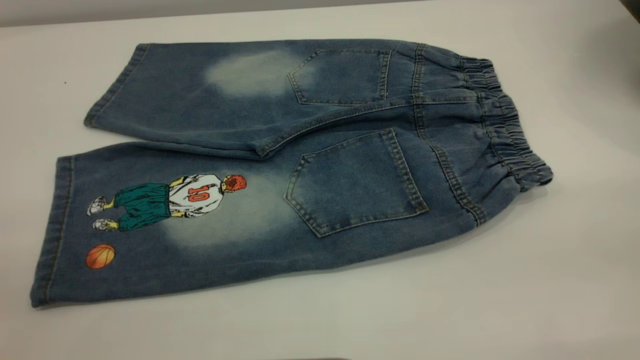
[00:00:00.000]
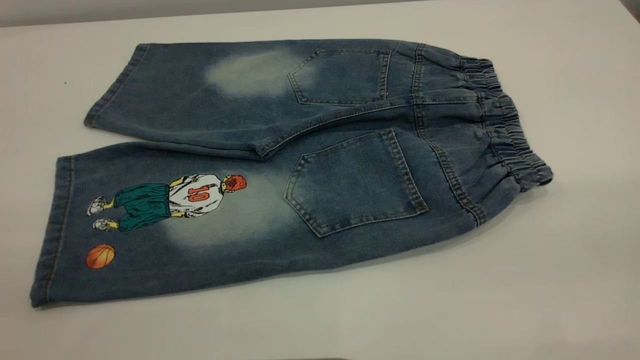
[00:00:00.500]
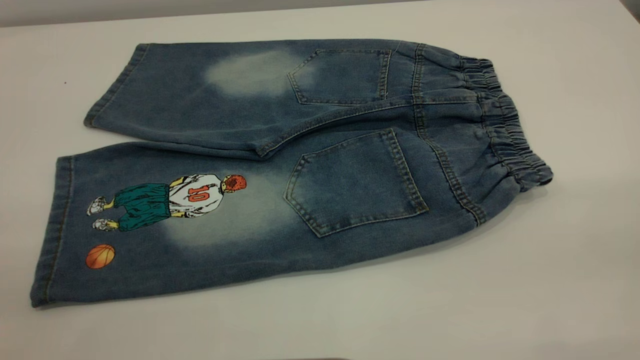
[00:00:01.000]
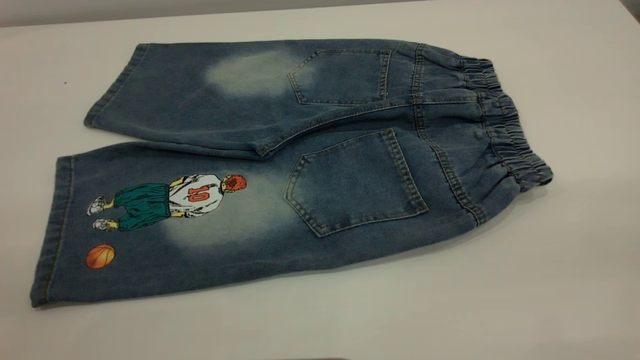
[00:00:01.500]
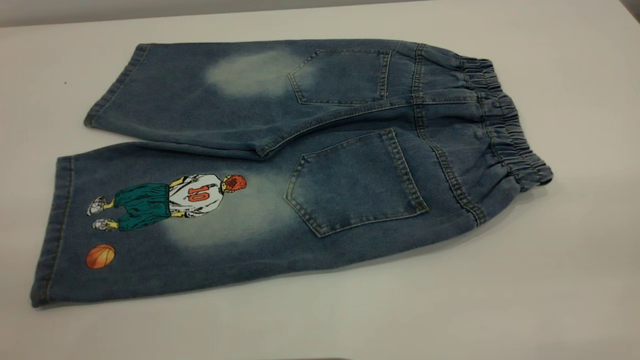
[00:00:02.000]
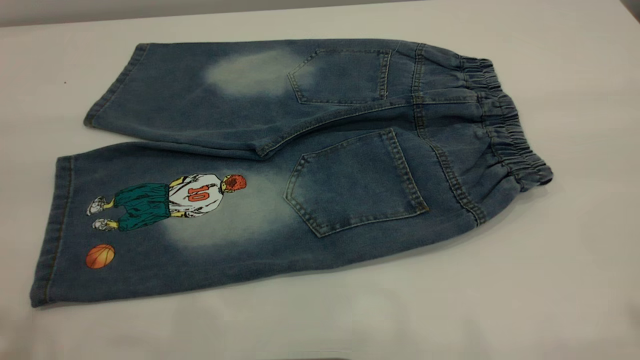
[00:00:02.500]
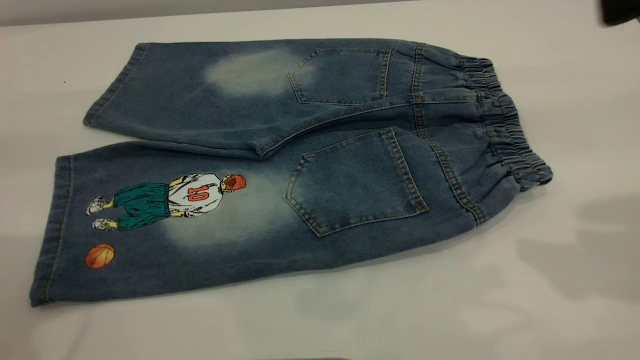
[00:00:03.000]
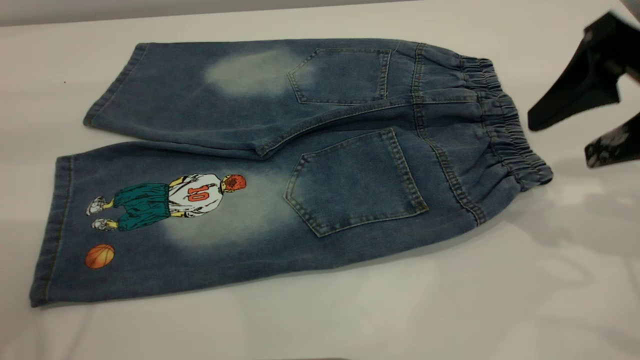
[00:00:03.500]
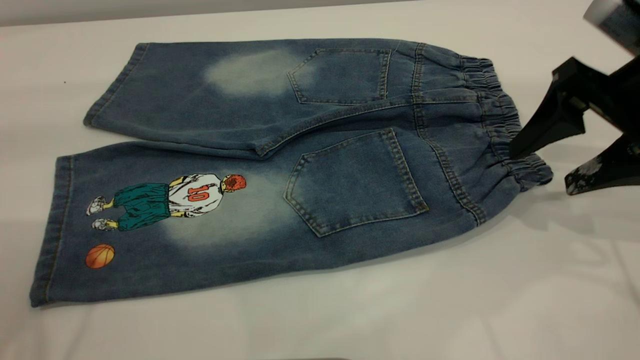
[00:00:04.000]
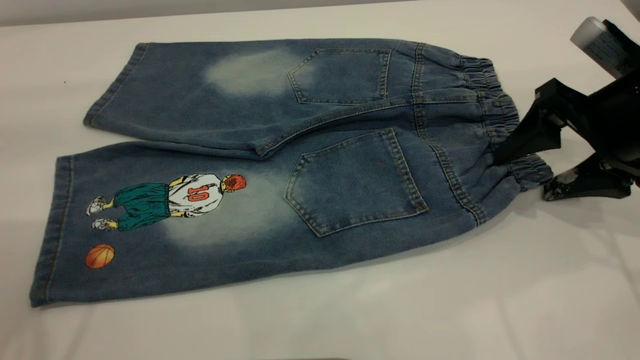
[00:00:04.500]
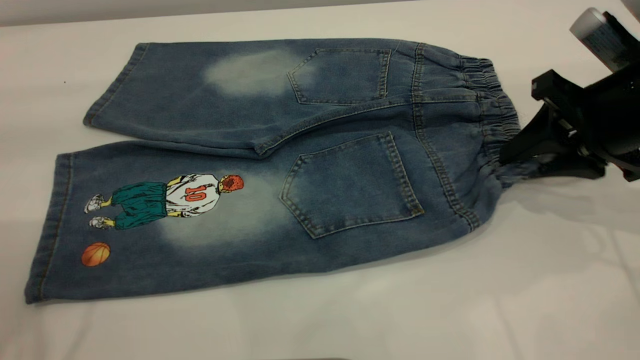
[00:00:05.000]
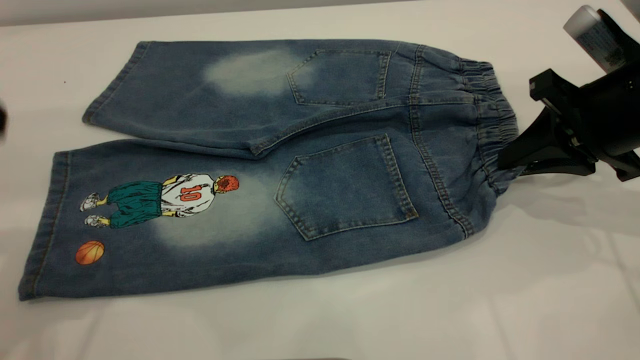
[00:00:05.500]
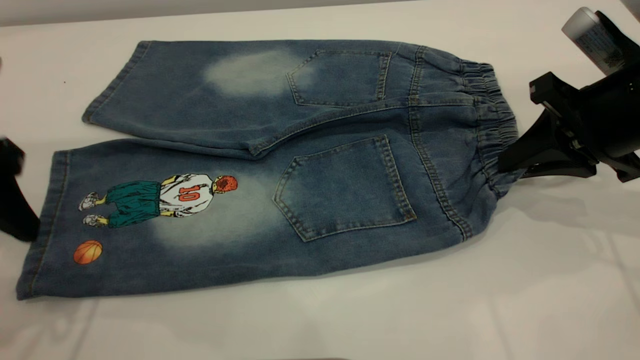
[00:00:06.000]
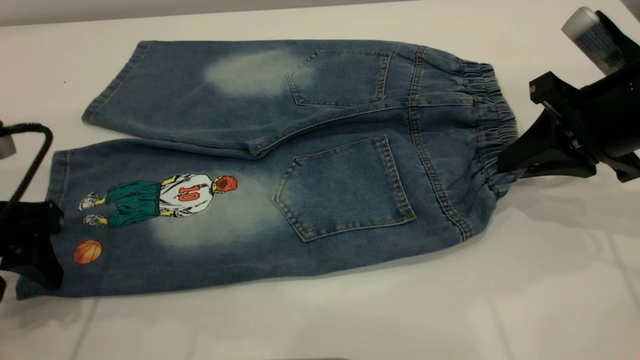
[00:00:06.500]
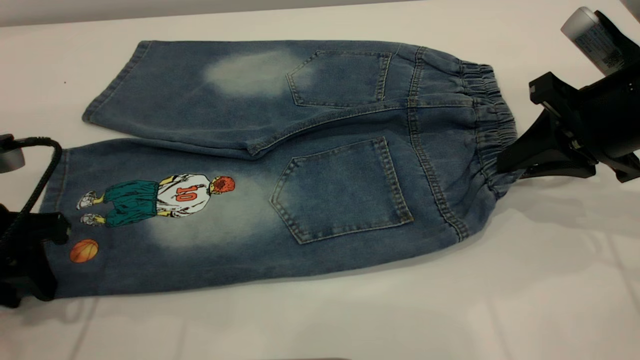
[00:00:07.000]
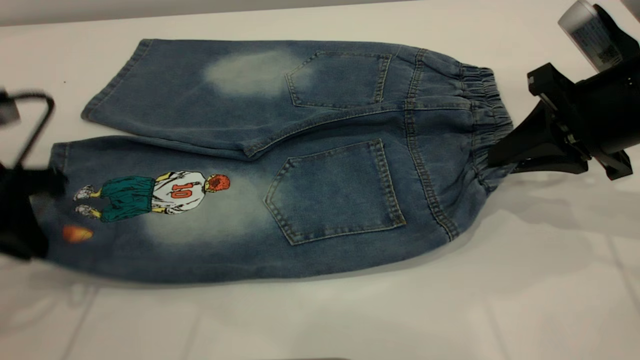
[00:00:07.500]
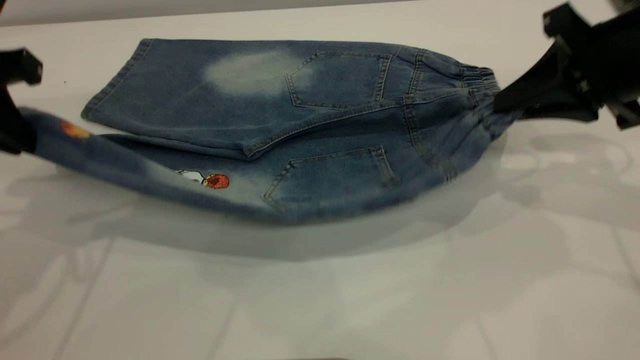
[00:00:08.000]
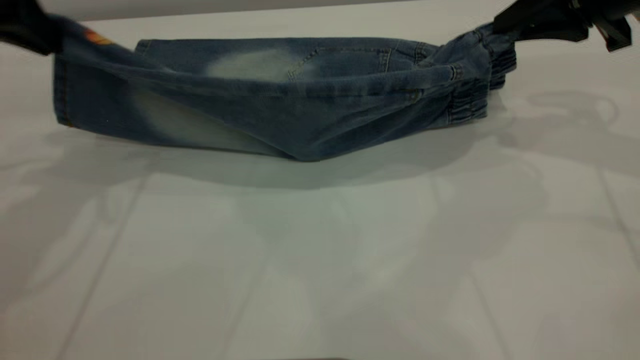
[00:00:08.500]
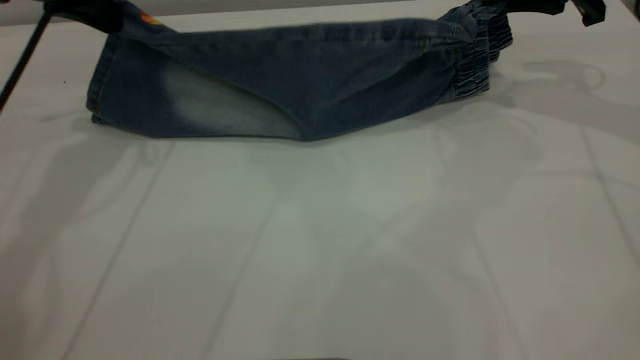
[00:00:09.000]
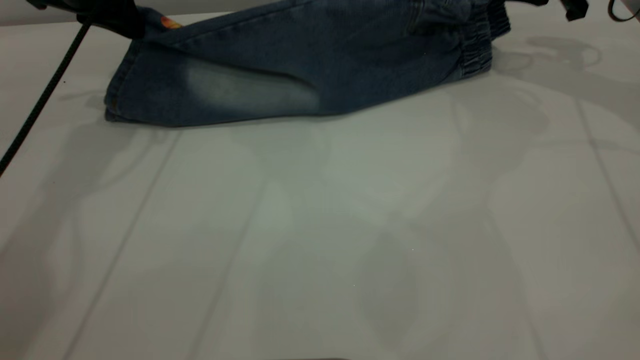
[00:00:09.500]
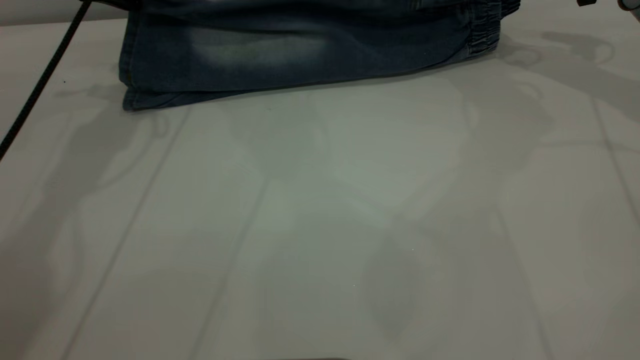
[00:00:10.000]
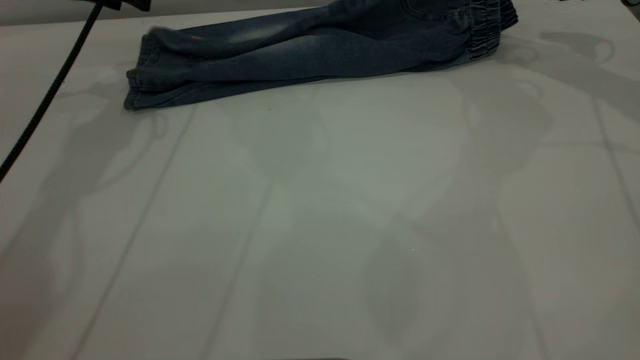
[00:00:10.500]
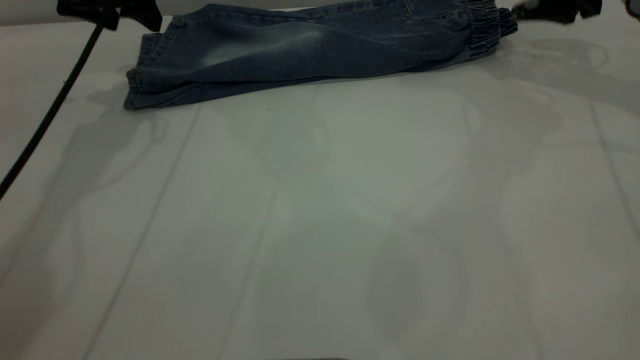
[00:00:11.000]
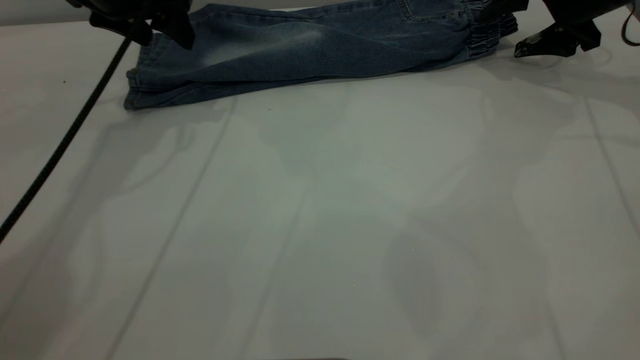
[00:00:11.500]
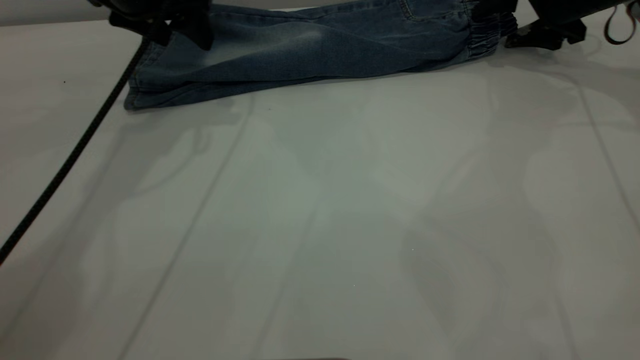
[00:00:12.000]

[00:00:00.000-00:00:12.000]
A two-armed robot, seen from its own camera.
Step, 00:00:00.000 to 00:00:11.000: Fold the bottom of the pants upward.
00:00:00.000 to 00:00:02.000: Both grippers stay put.
00:00:02.000 to 00:00:04.000: The right gripper travels forward and downward by approximately 35 cm.
00:00:04.000 to 00:00:06.000: The right gripper closes up. Meanwhile the left gripper moves downward, some 15 cm.
00:00:06.000 to 00:00:08.000: The left gripper heads forward, covering some 5 cm, and closes, while the right gripper heads upward, covering roughly 5 cm.
00:00:08.000 to 00:00:10.000: Both grippers travel together forward, roughly 20 cm.
00:00:10.000 to 00:00:12.000: The right gripper heads downward, covering some 5 cm, and opens up; the left gripper is displaced to the right by some 5 cm, and opens up.

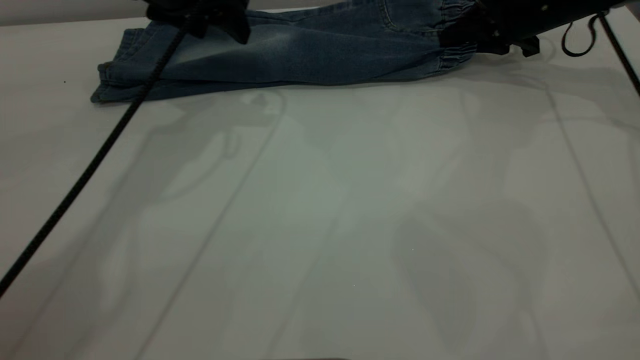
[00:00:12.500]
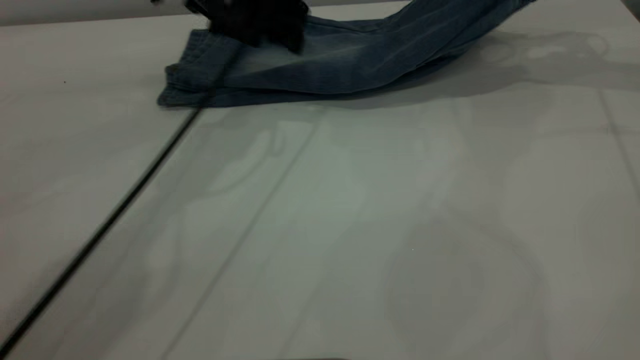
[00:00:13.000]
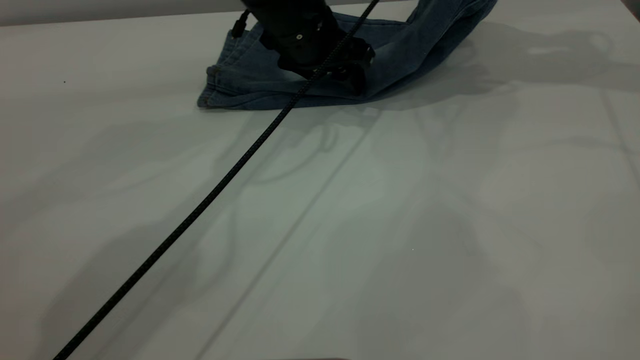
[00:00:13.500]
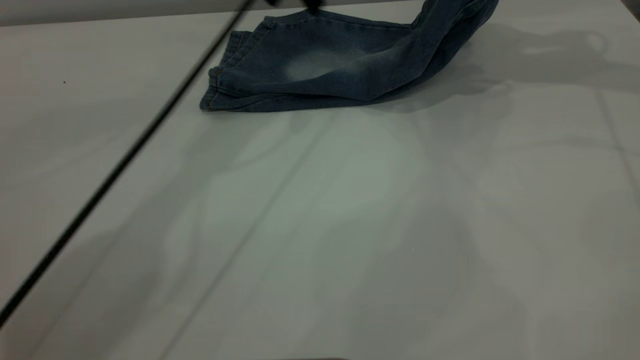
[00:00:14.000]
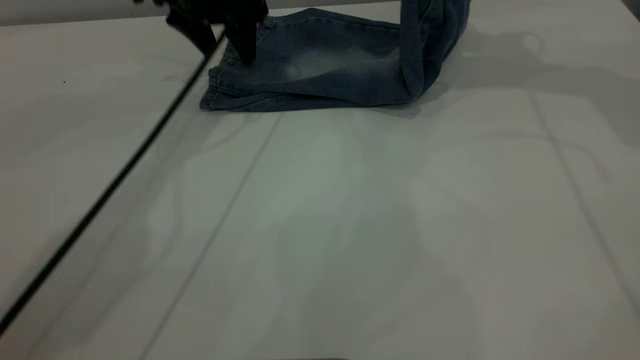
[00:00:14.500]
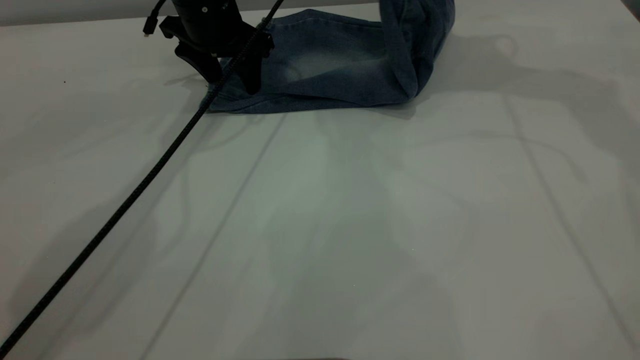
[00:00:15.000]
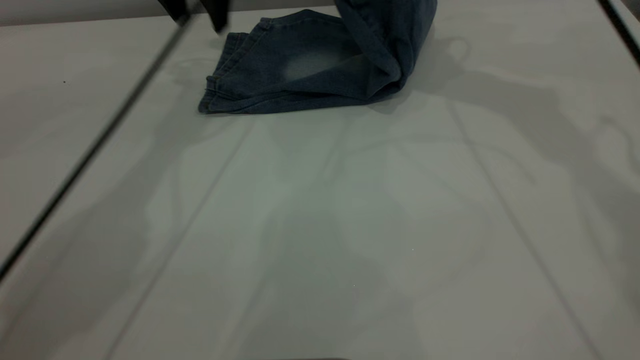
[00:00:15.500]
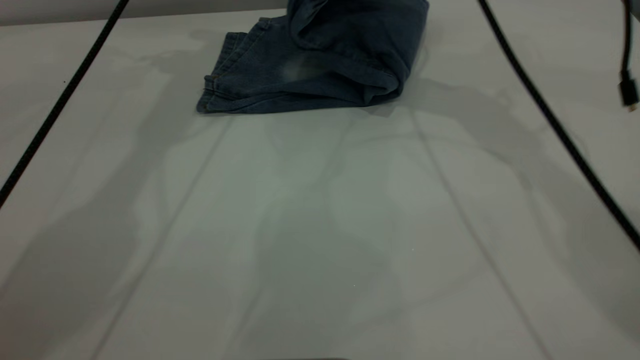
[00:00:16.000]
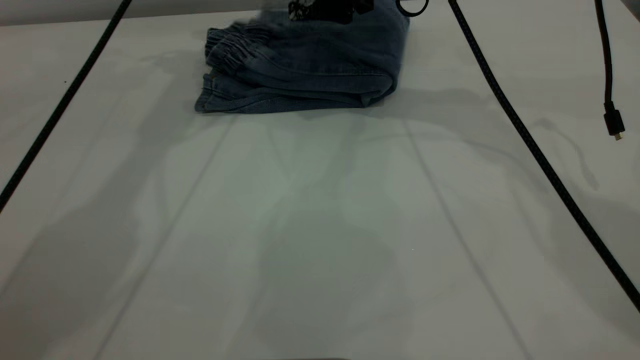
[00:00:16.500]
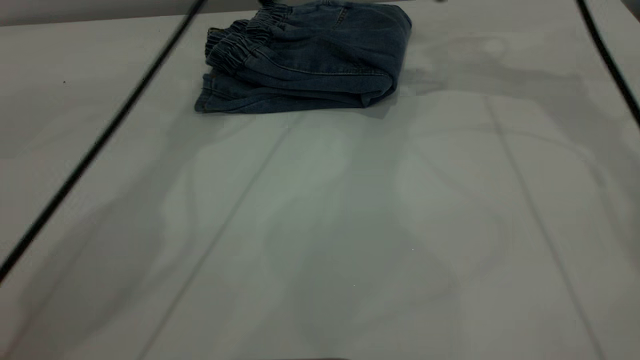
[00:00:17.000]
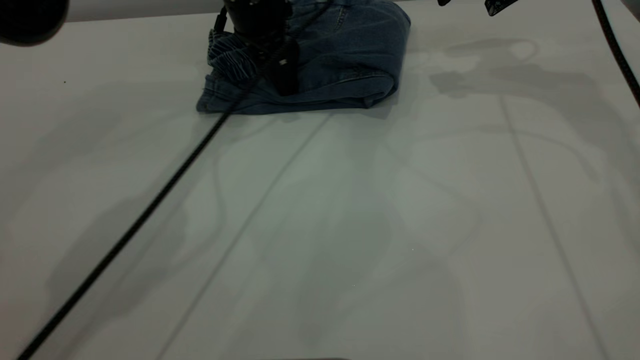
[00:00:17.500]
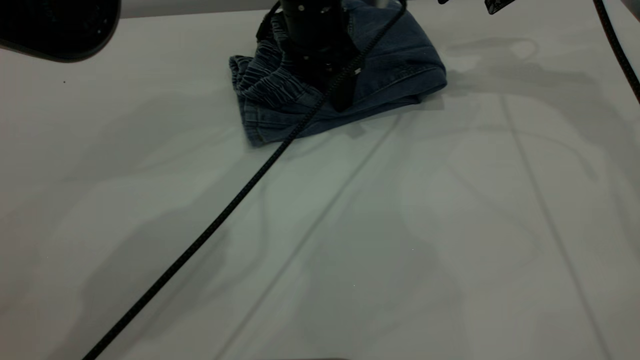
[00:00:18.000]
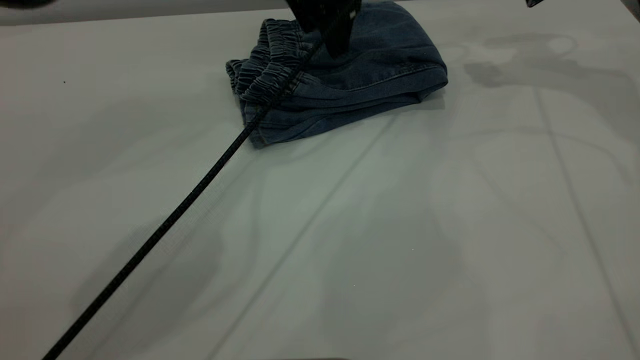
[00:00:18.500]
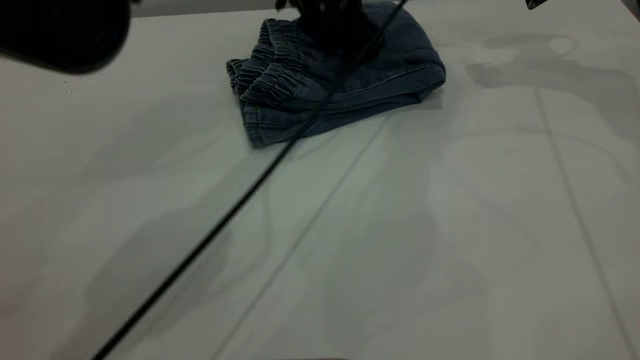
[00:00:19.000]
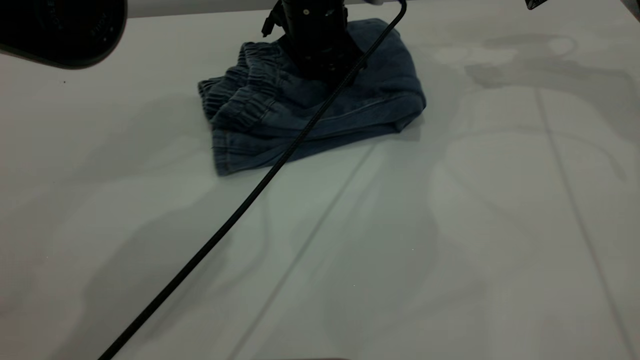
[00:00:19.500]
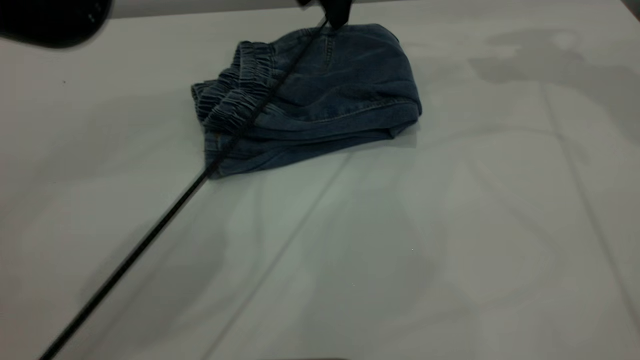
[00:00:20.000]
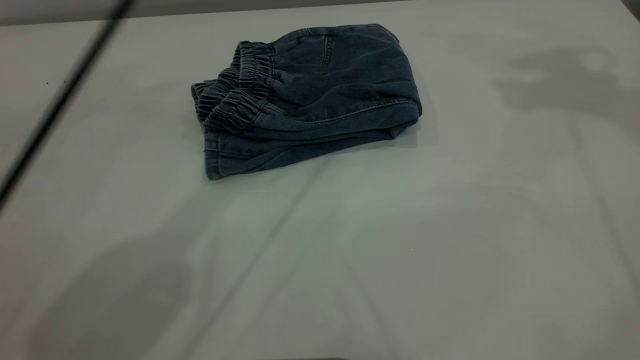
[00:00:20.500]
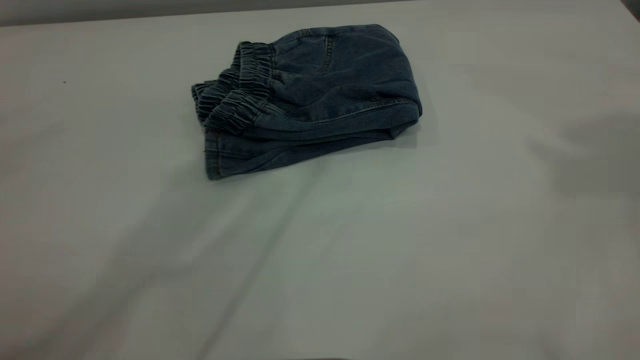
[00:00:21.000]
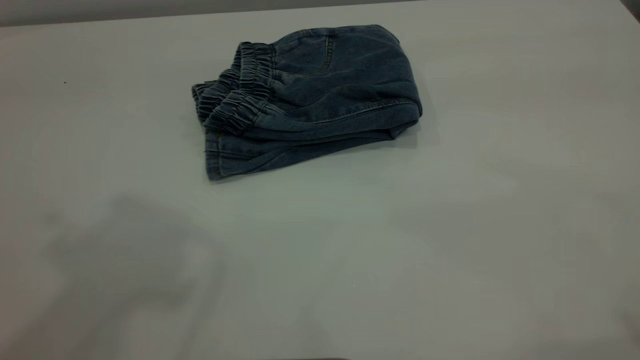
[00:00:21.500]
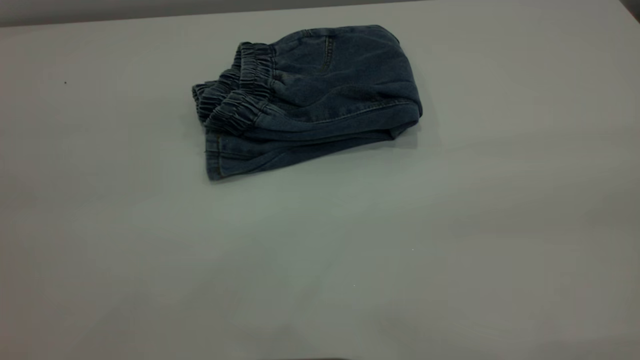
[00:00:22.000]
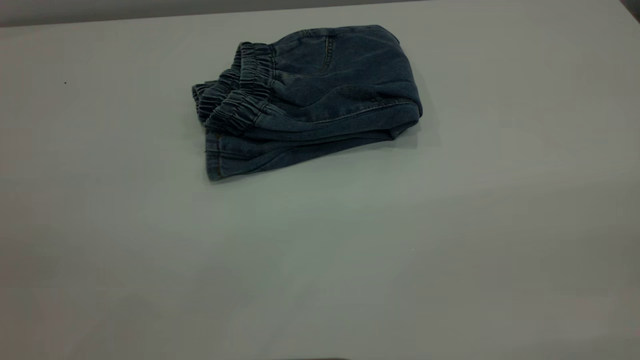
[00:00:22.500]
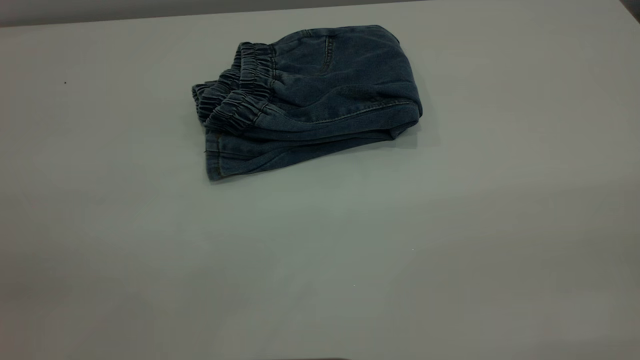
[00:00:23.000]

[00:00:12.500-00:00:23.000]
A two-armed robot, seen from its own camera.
Step, 00:00:12.500 to 00:00:16.500: Fold your pants from right to left.
00:00:12.500 to 00:00:14.500: The right gripper heads upward, covering approximately 20 cm. The left gripper shifts about 5 cm forward, and goes to the right and returns, about 10 cm each way.
00:00:14.500 to 00:00:16.500: The left gripper moves upward, approximately 10 cm; the right gripper moves to the left and downward, some 20 cm, and opens up.
00:00:16.500 to 00:00:19.000: The right gripper shifts roughly 20 cm to the right; the left gripper goes approximately 20 cm to the right and downward.
00:00:19.000 to 00:00:21.000: The left gripper goes approximately 35 cm upward, while the right gripper shifts about 35 cm upward and backward.
